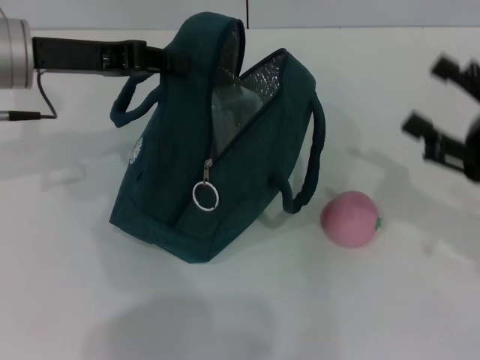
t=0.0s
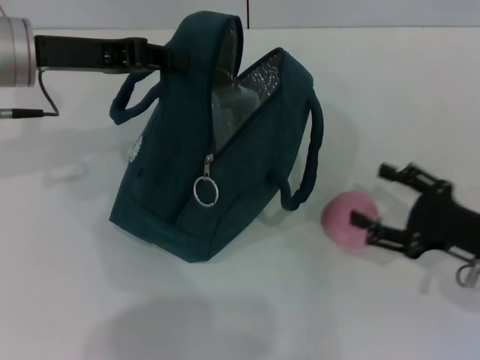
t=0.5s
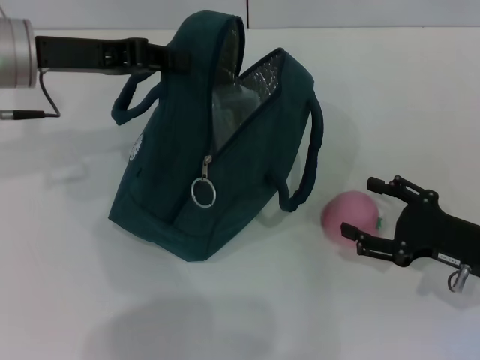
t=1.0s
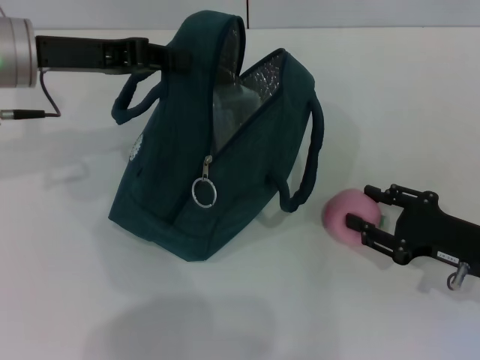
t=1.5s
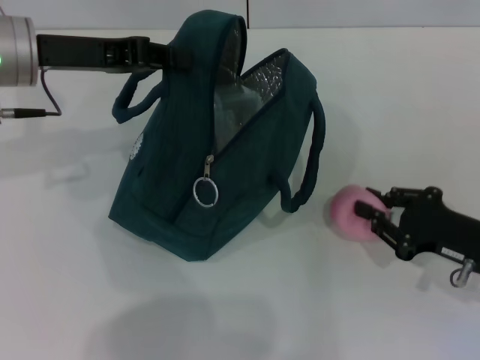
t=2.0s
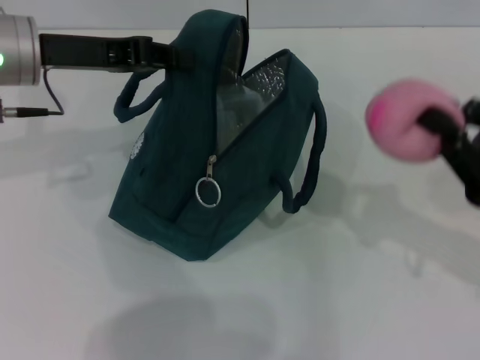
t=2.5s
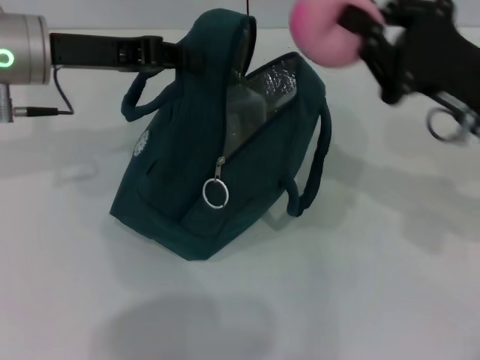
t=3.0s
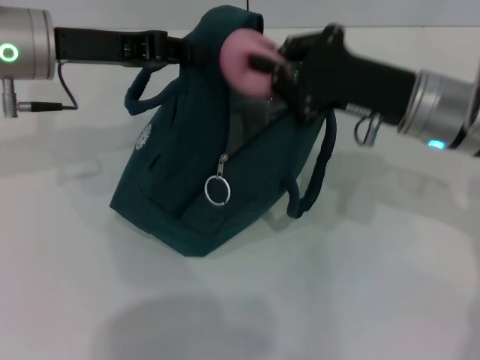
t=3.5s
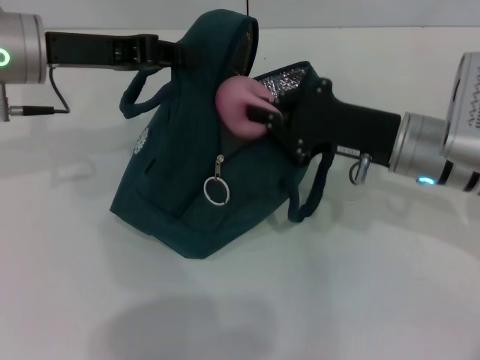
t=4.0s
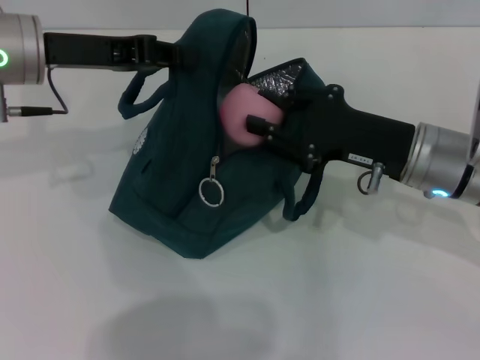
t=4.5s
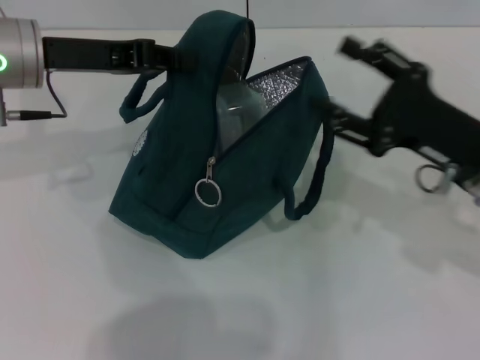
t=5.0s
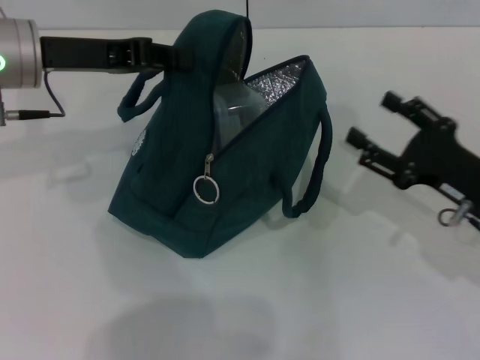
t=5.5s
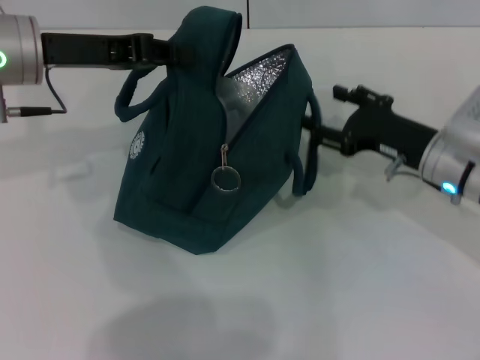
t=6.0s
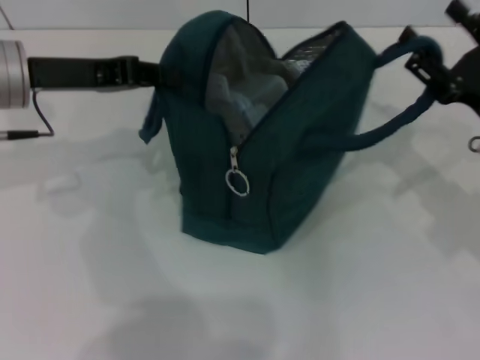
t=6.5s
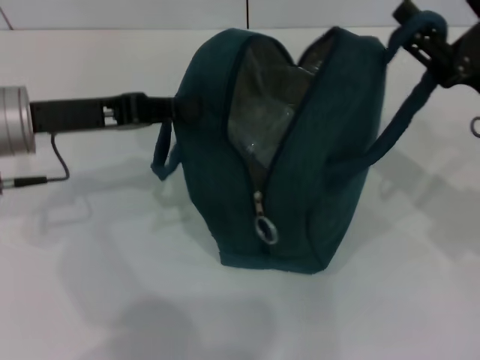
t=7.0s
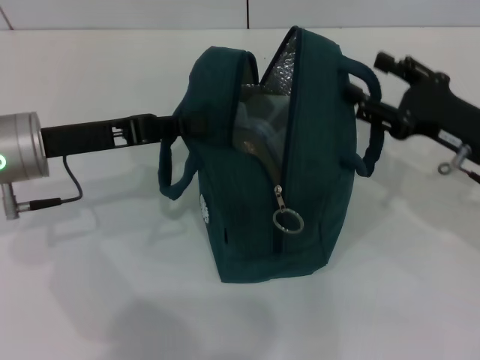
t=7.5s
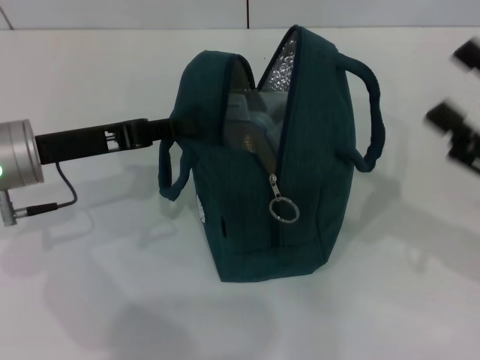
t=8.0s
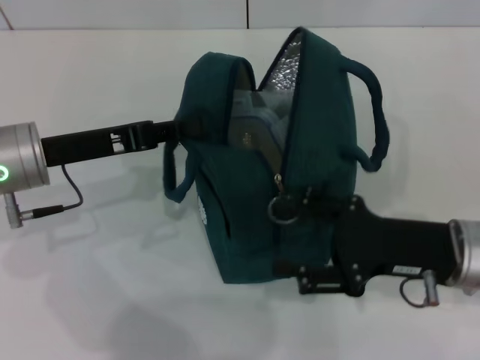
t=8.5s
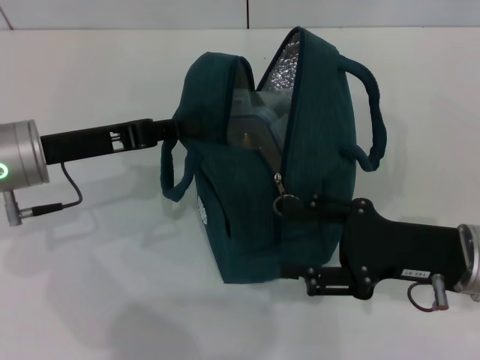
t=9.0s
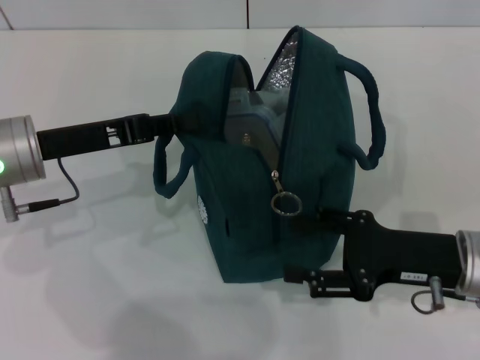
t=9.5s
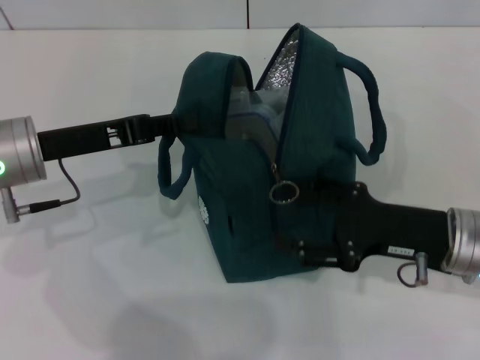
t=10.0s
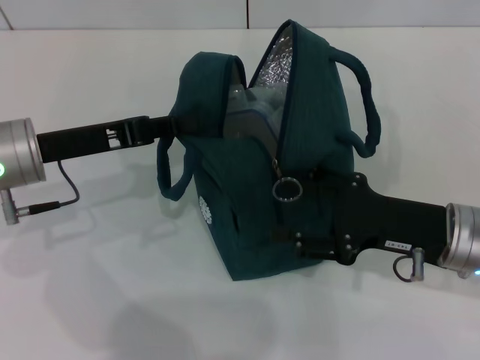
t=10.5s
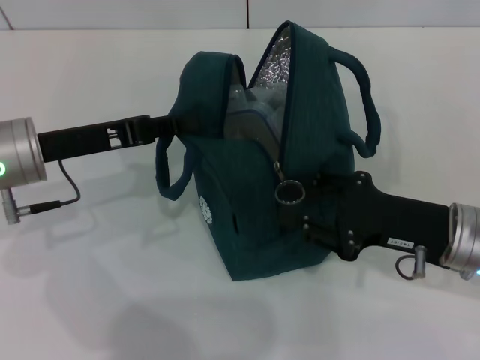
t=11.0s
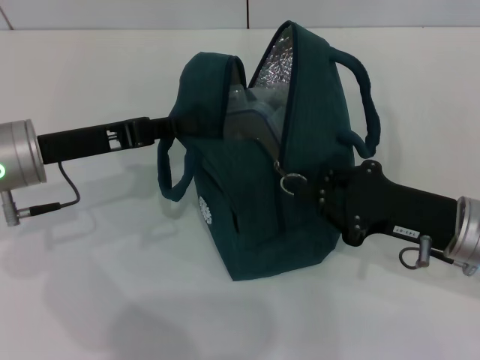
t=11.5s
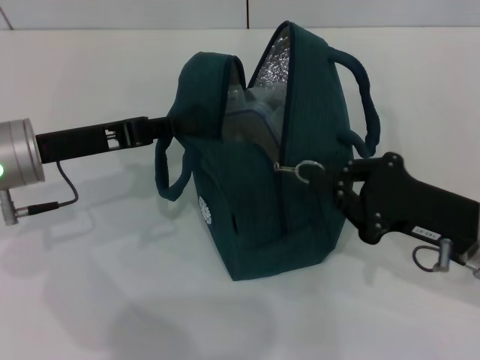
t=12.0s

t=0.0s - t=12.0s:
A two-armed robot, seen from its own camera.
Step, t=0.0s - t=1.5s: Grab the peach with your right hand.
Step, t=5.0s - t=7.5s: Hold the lunch bag with your right hand.
t=0.0s - t=2.0s: The right gripper moves downward, some 10 cm, and closes its fingers.
t=2.0s - t=4.0s: The right gripper goes about 15 cm to the left, forward and upward.
t=4.0s - t=6.0s: The right gripper opens.
t=6.0s - t=8.0s: The right gripper shifts about 15 cm backward, to the right and upward. Meanwhile the left gripper goes some 10 cm downward and backward.
t=8.0s - t=10.0s: The right gripper travels to the left by roughly 10 cm.
t=10.0s - t=12.0s: The right gripper closes its fingers.

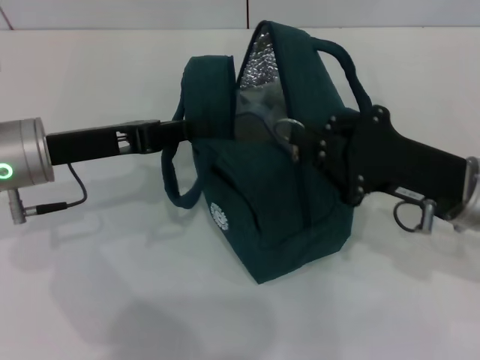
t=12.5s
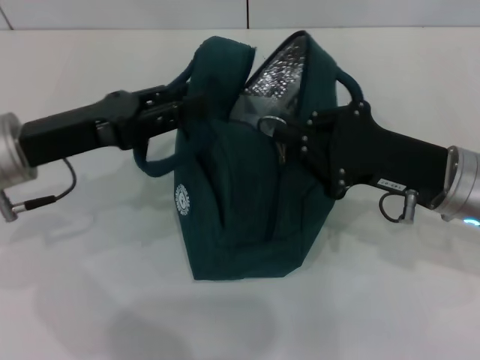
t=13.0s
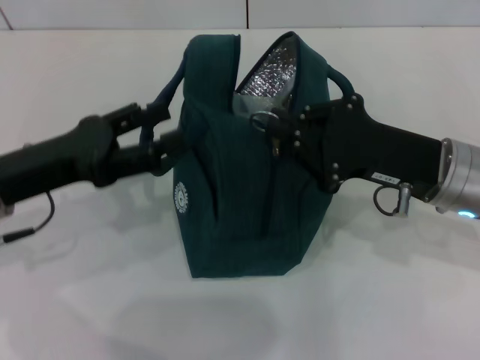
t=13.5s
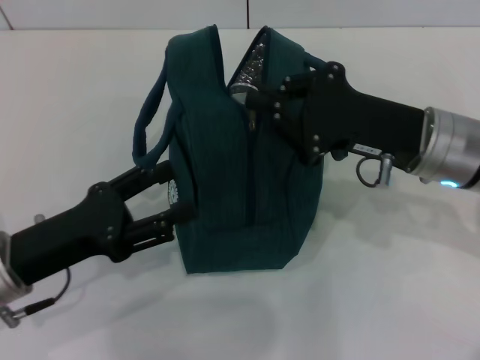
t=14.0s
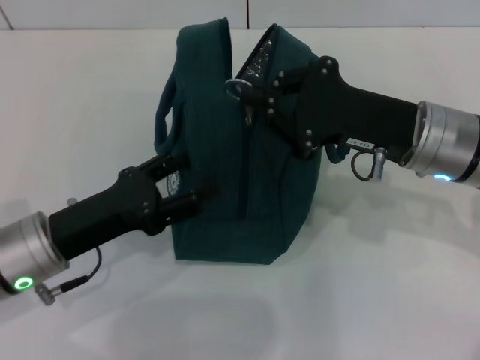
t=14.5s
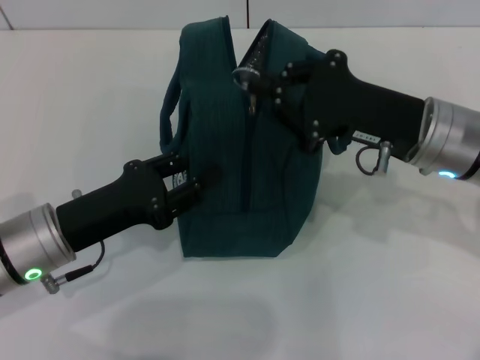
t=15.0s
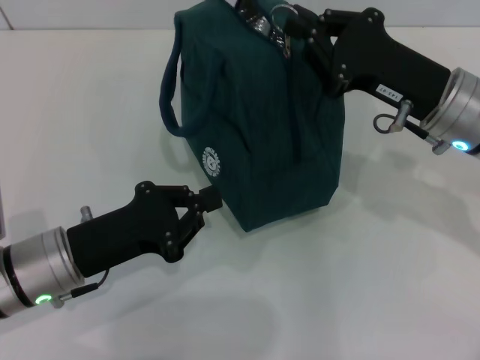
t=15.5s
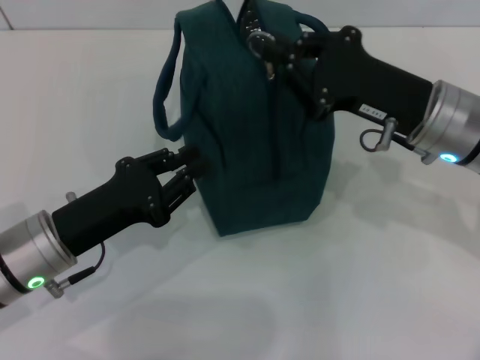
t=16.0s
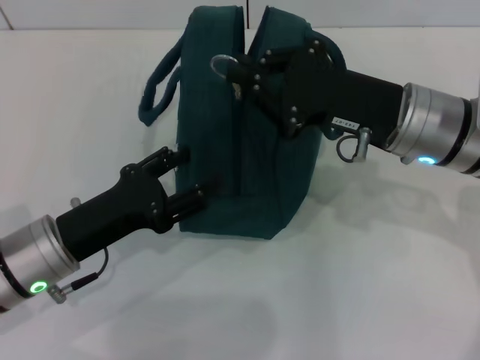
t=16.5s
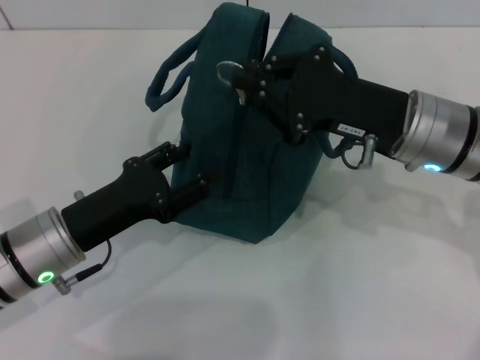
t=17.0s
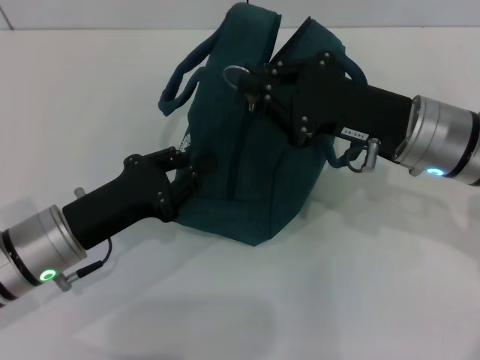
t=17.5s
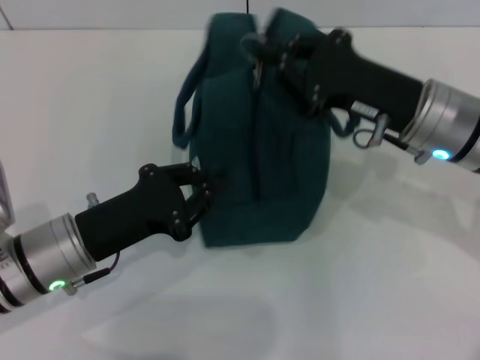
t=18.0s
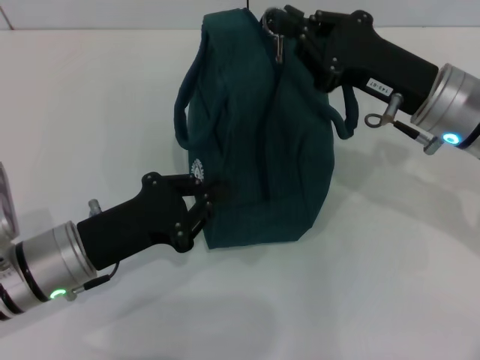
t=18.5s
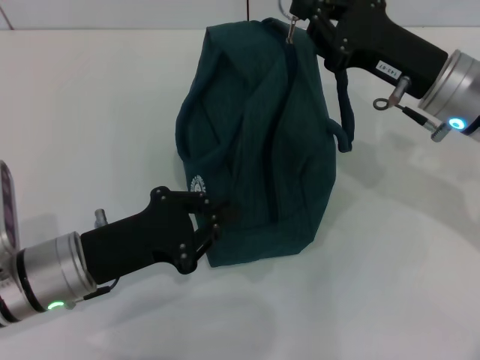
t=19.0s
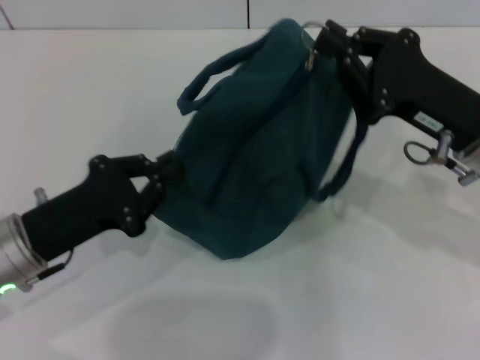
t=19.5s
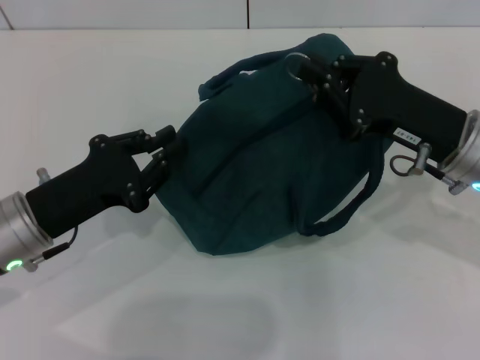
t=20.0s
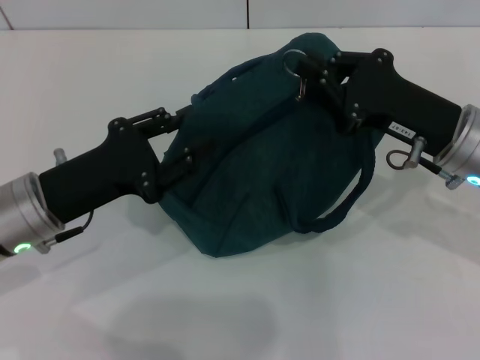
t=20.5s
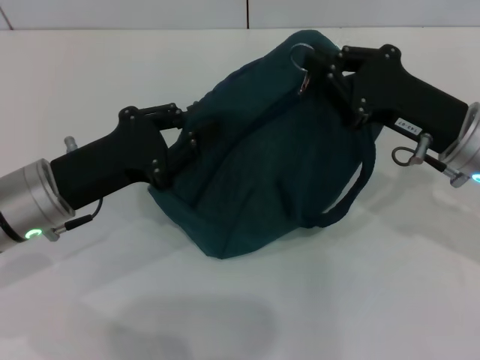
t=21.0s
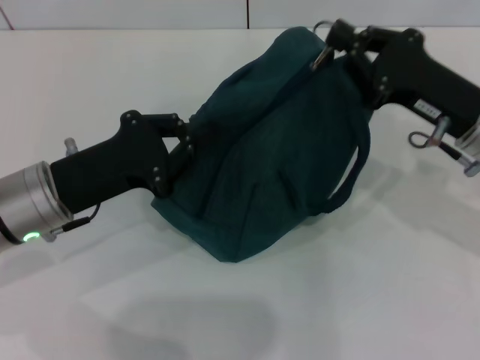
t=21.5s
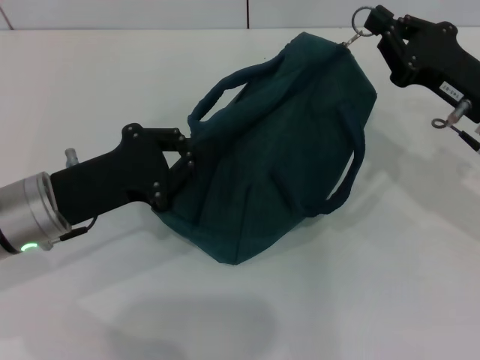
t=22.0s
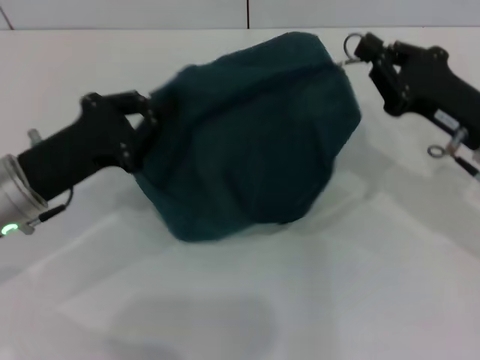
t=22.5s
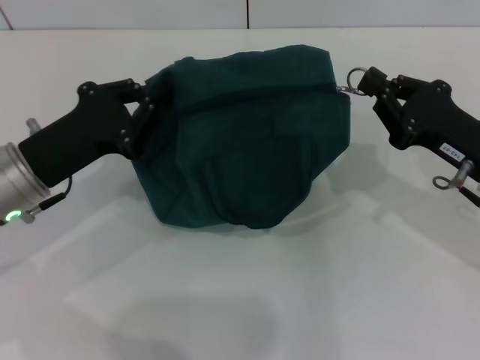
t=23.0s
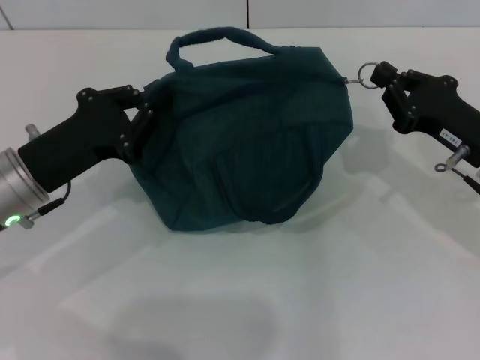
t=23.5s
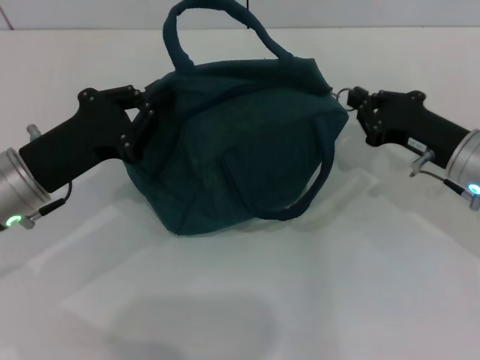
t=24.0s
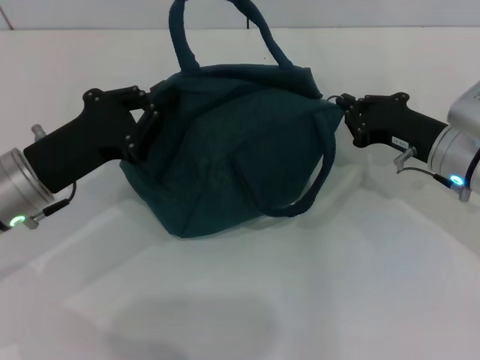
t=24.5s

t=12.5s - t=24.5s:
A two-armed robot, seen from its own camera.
t=12.5s - t=14.5s: The right gripper moves about 5 cm, while the left gripper heads backward and downward, covering approximately 10 cm, and opens its fingers.
t=14.5s - t=16.5s: The left gripper closes, then reopens.
t=16.5s - t=18.5s: The left gripper closes its fingers.
t=18.5s - t=20.5s: The left gripper opens up.
t=20.5s - t=22.5s: The left gripper closes up.
t=22.5s - t=24.5s: The right gripper ends up some 5 cm from where it was.

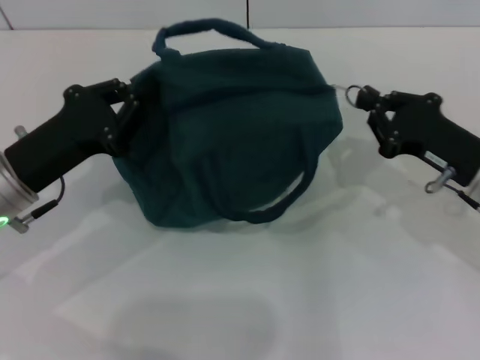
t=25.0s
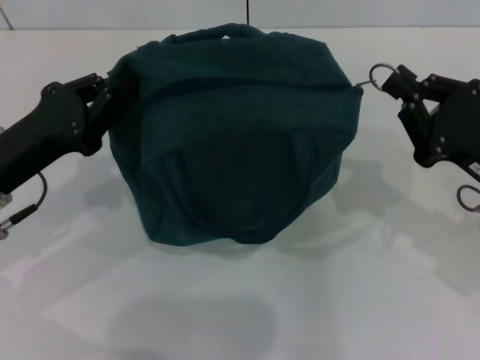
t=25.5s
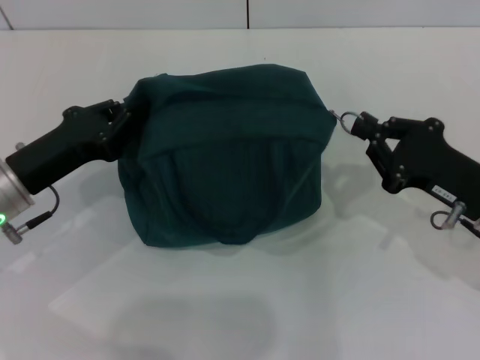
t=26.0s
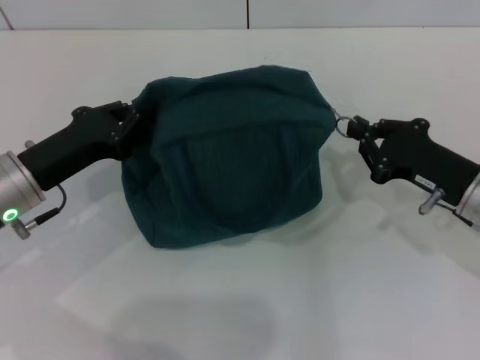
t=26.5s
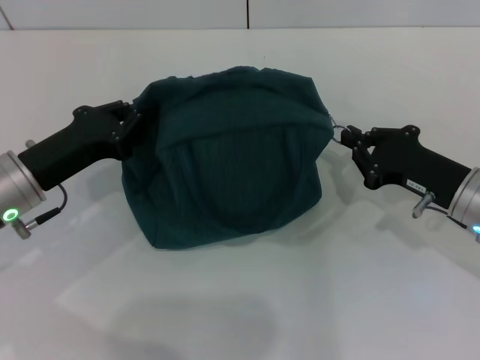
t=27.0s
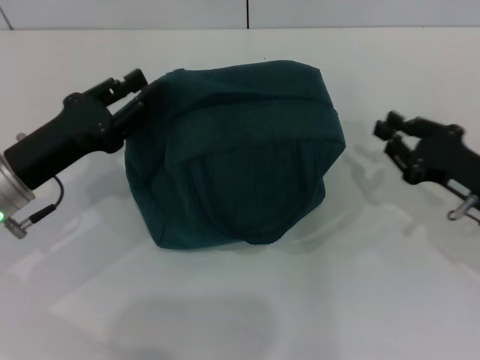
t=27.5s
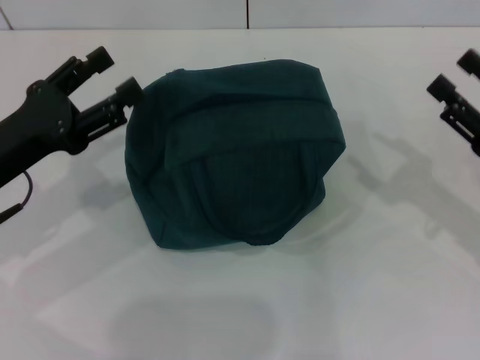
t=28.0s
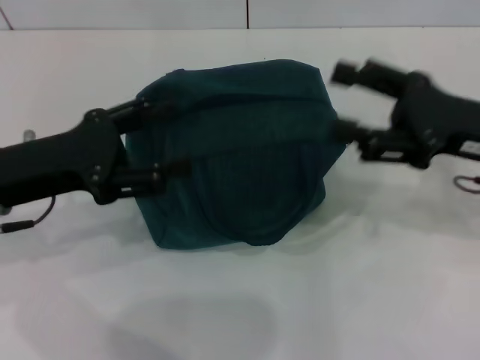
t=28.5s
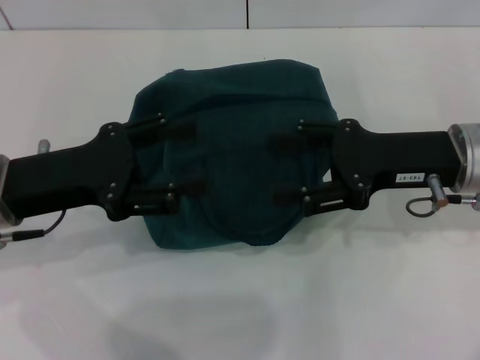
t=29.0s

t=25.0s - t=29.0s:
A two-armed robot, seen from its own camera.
Step, t=25.0s - t=27.5s: Hold the lunch bag with your left hand.
t=25.0s - t=27.0s: The grippers make only small movements.
t=27.0s - t=29.0s: The left gripper goes some 5 cm upward, and opens its fingers, while the right gripper moves upward, approximately 10 cm, and opens up.
